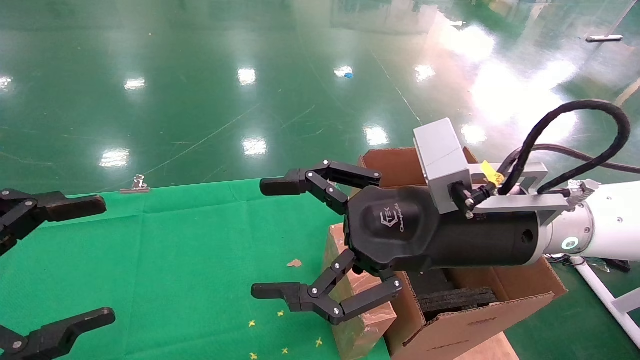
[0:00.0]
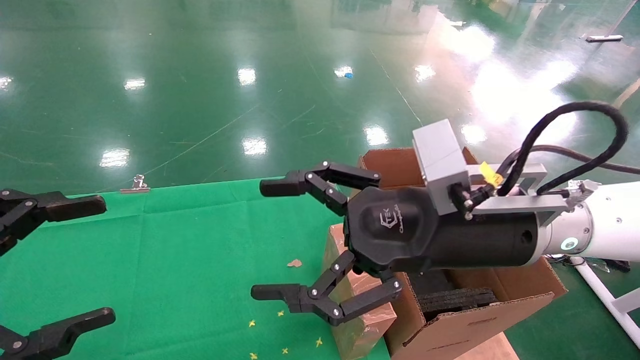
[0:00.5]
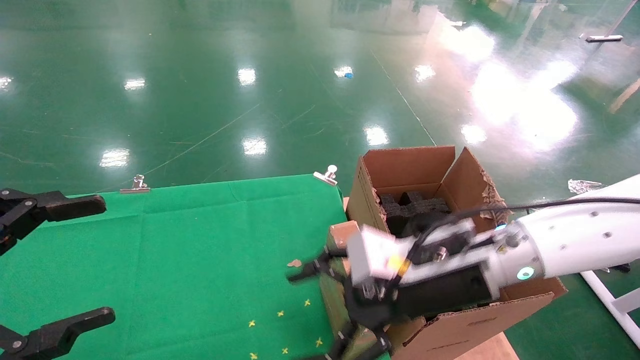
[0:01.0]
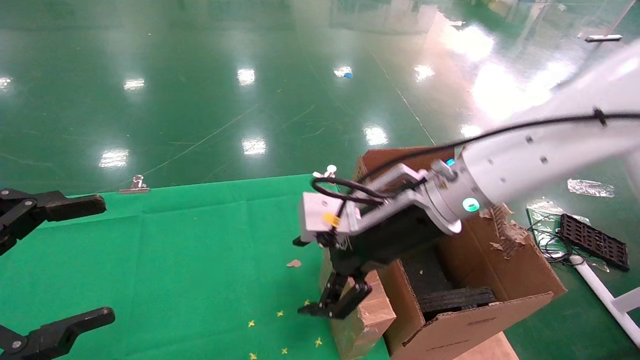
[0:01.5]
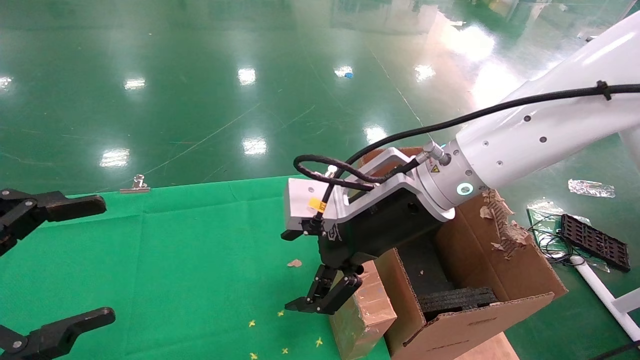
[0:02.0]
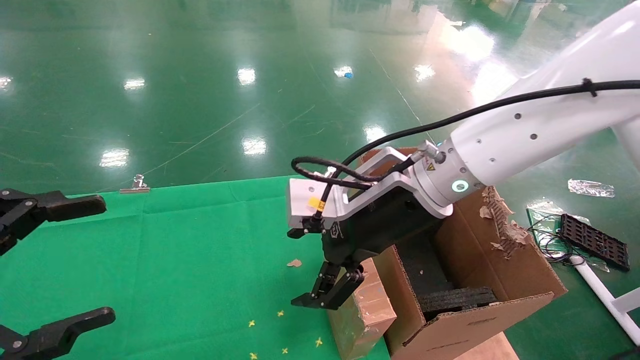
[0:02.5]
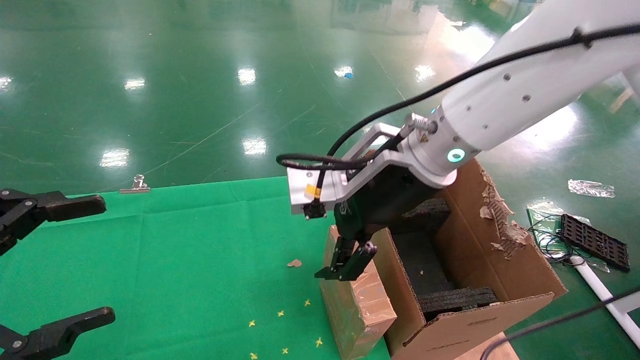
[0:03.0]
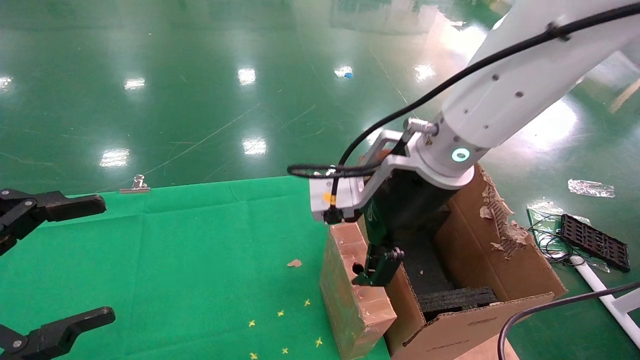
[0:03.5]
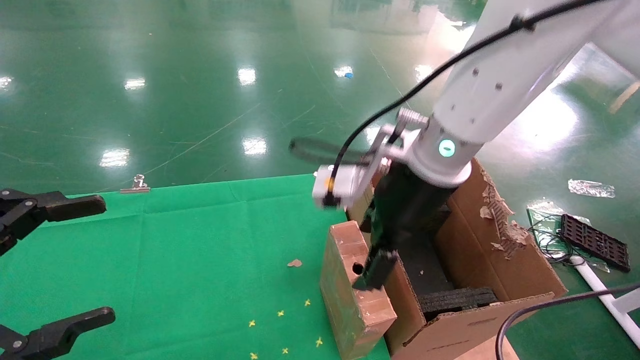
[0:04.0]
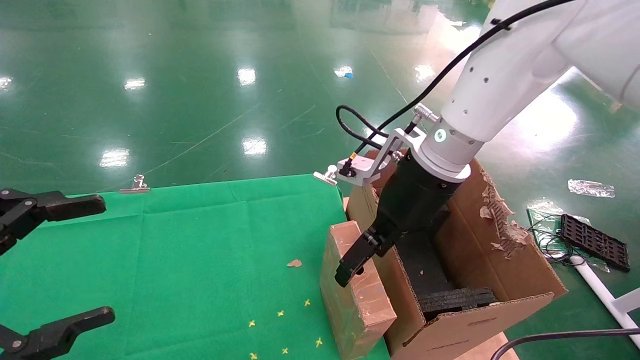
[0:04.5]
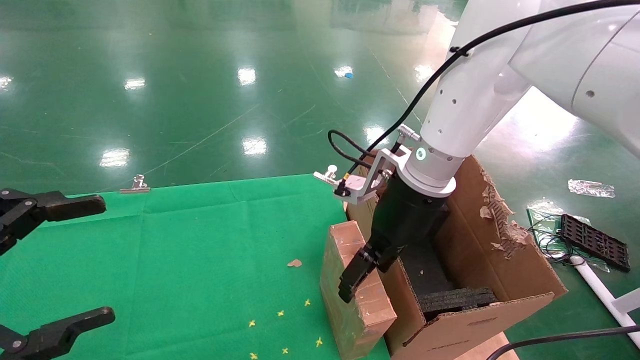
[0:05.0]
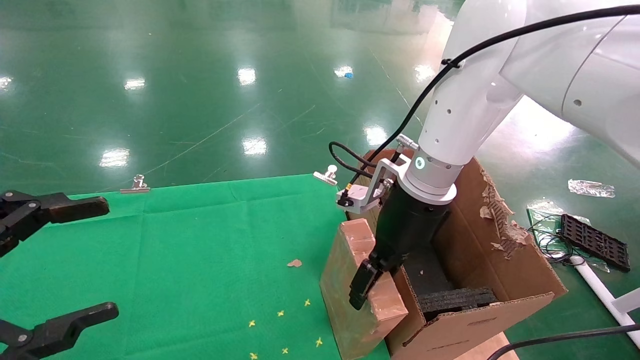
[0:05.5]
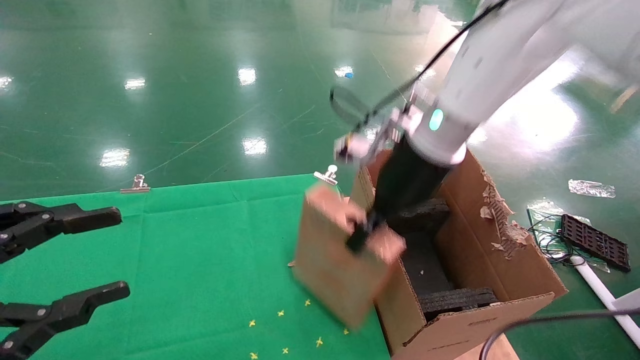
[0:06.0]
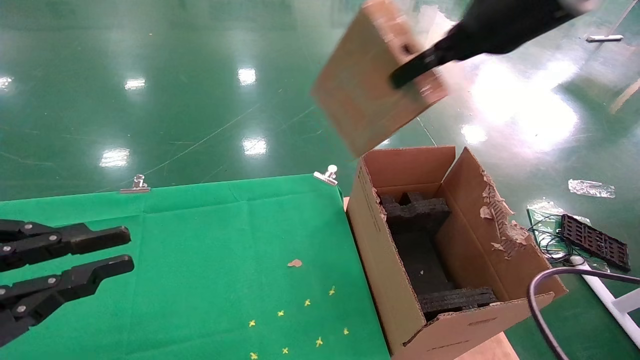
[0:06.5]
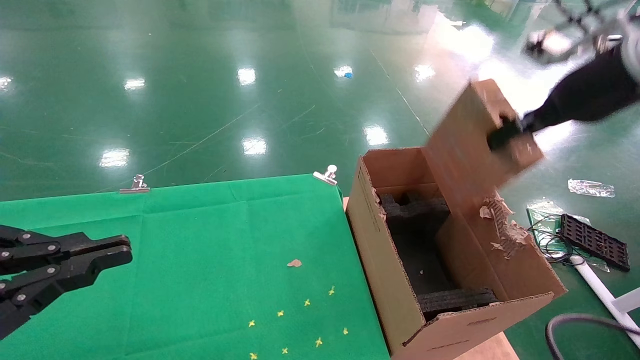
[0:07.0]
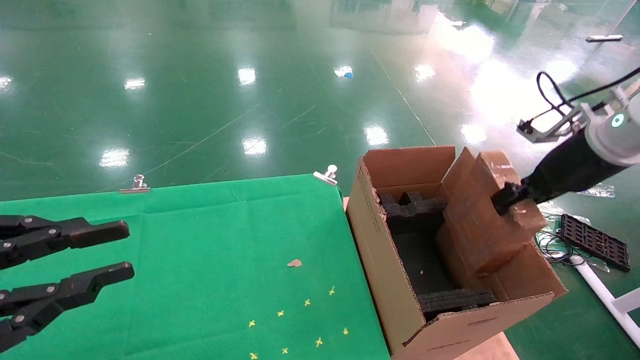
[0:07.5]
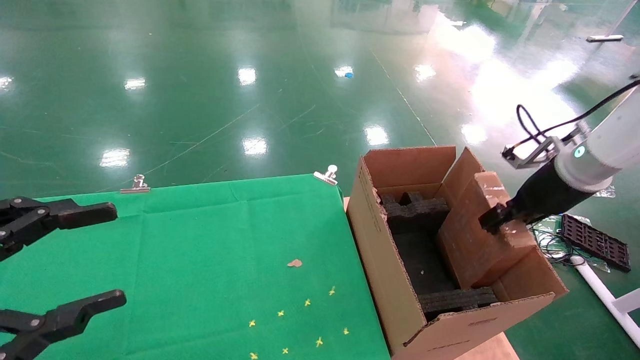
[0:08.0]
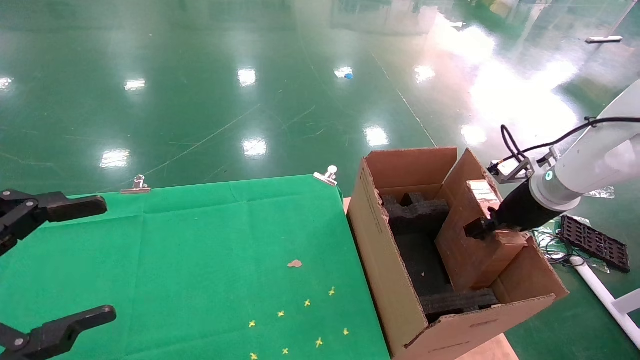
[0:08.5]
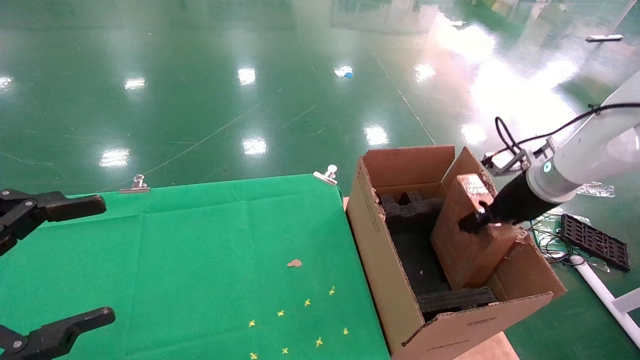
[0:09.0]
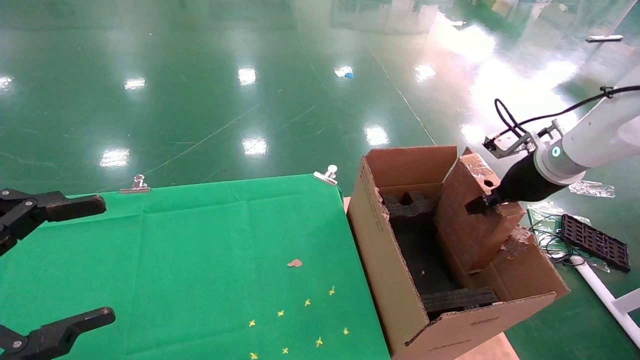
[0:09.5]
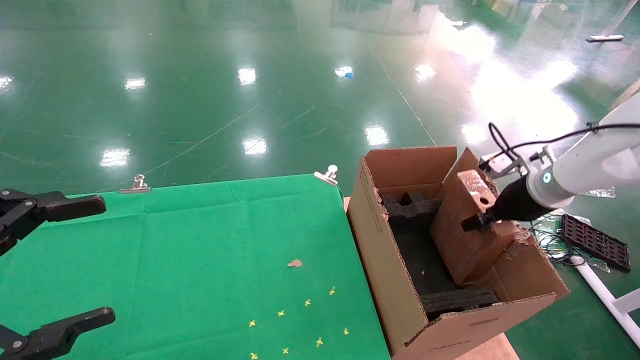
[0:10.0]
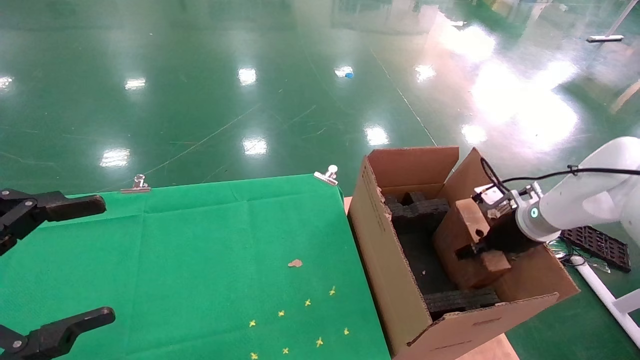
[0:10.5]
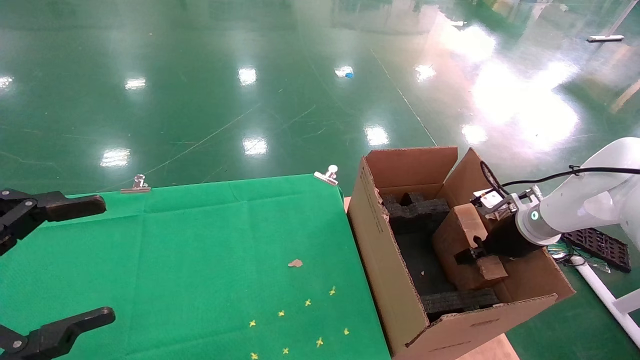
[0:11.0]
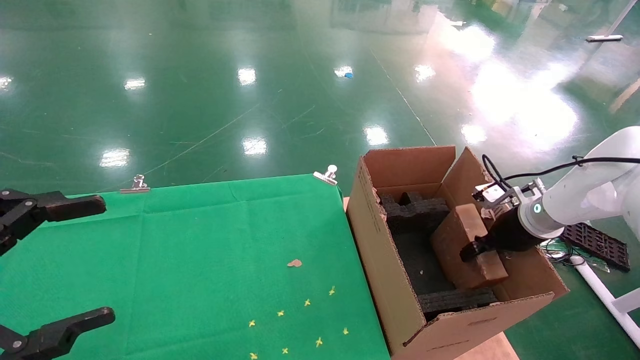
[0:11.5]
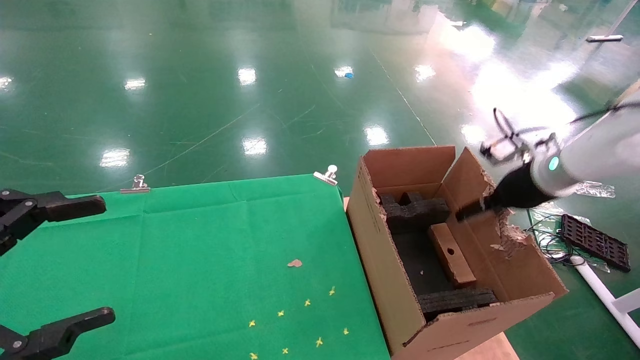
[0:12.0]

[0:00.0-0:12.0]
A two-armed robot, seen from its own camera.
Task of the whole recording: using a robotic arm to pick up a cardboard box and palace it the carton.
Step, 0:01.0 to 0:06.0: Pick up the mouse and the power cord paper box.
0:00.0 to 0:02.0: The right gripper moves forward and to the left, roughly 10 cm.
0:04.0 to 0:06.0: The right gripper ends up about 5 cm from where it was, and closes.
0:06.0 to 0:08.0: The right gripper goes approximately 25 cm to the right. The left gripper closes, then opens again.
0:08.0 to 0:10.0: The left gripper opens its fingers. The right gripper goes up and down, some 5 cm each way, reversing 2 times.
0:10.0 to 0:12.0: The right gripper heads upward, covering approximately 5 cm, and opens up.

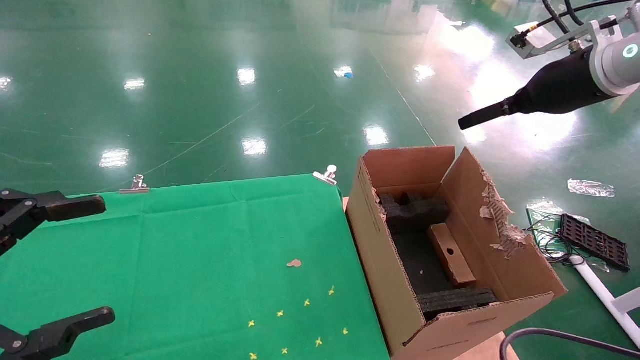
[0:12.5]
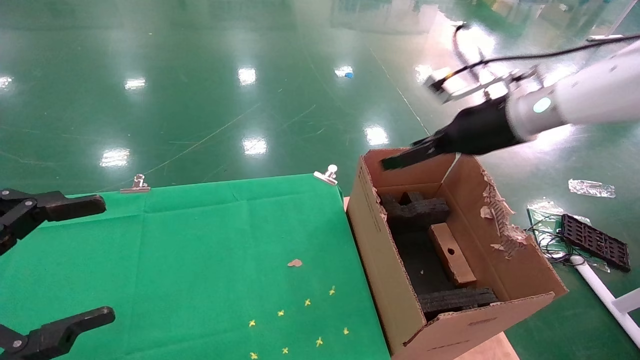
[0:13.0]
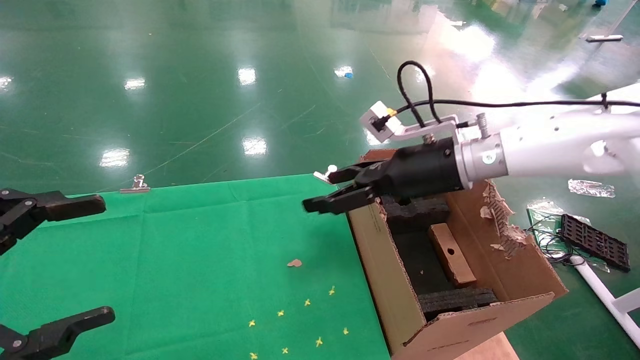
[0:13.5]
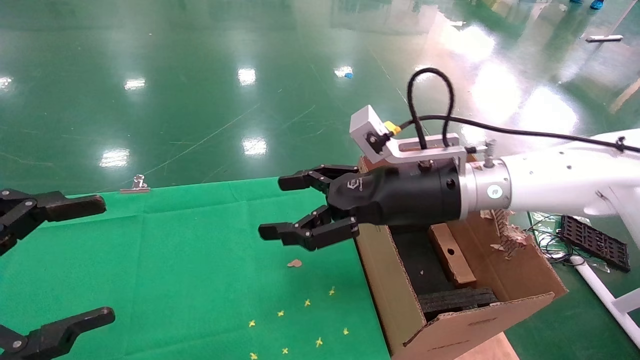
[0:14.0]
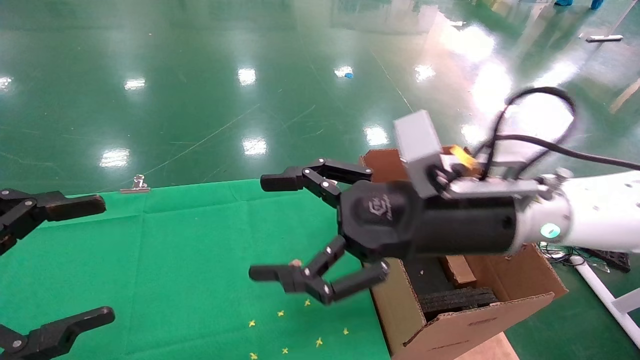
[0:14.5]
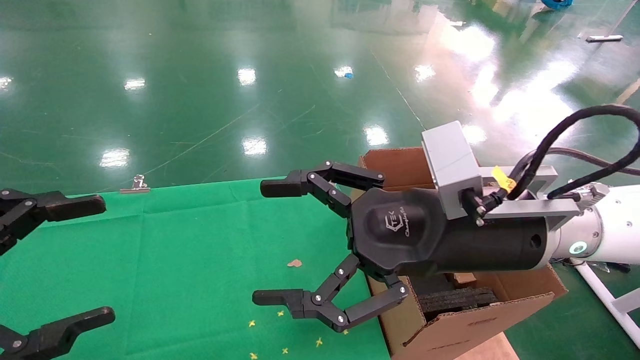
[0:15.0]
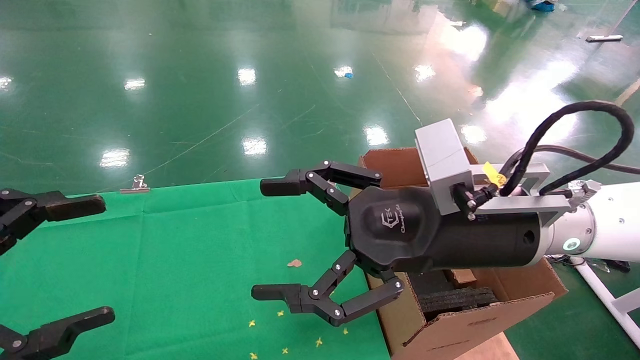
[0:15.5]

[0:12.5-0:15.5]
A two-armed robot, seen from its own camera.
Task of the whole recording: using a robotic arm to pick up a cardboard box and palace it the carton.
0:12.5 to 0:14.0: The right gripper goes roughly 25 cm to the left and downward.
0:14.0 to 0:15.5: The right gripper shifts approximately 10 cm backward.
